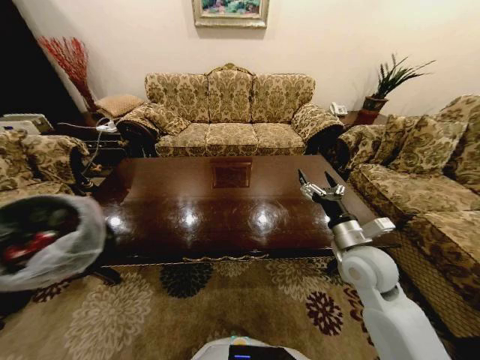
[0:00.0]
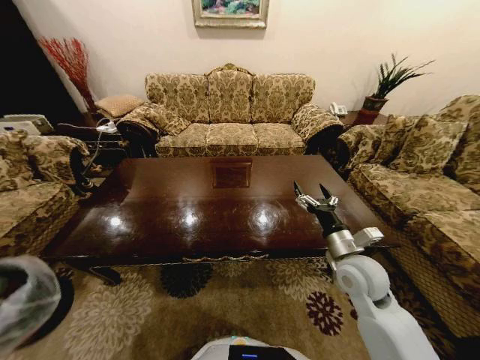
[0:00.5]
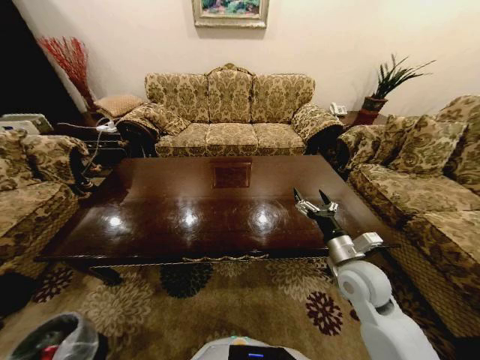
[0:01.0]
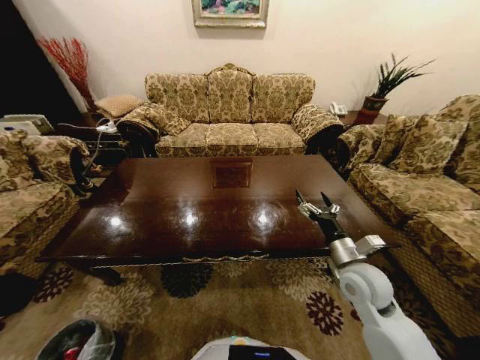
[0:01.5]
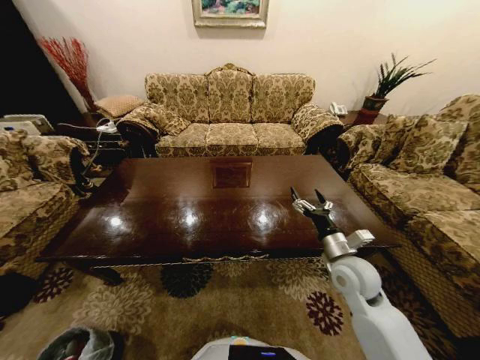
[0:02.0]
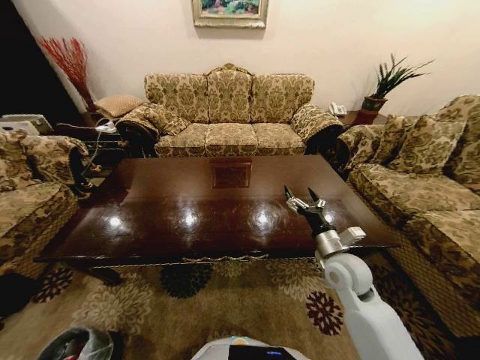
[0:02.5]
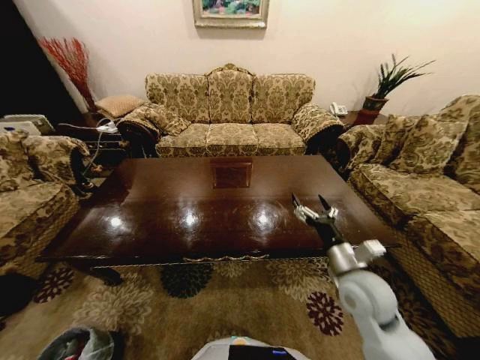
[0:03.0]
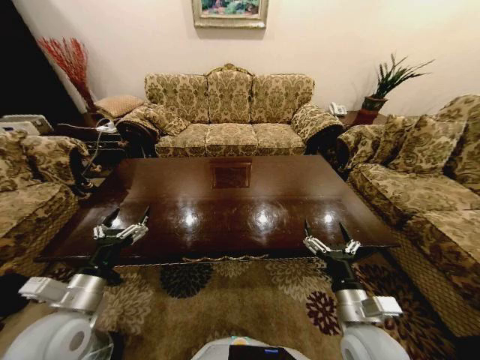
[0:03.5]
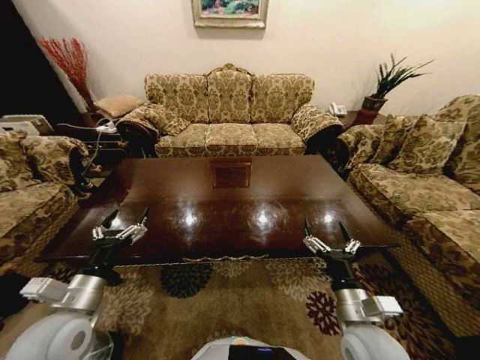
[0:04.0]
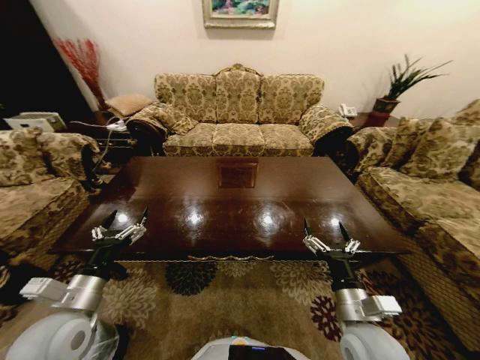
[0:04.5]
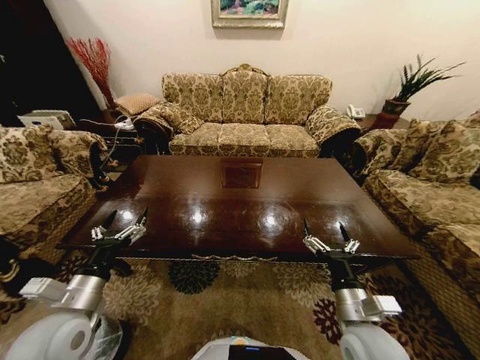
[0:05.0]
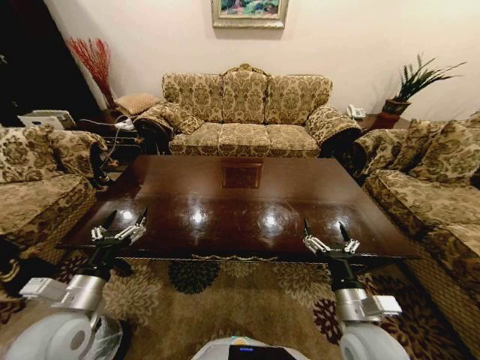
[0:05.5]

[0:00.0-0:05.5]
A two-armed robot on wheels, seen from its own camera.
Task of the whole recording: Move to the front of the table and place the trash on the table into the trash bin.
0:00.0 to 0:02.0: The right gripper changes place by approximately 5 cm. The left gripper is displaced downward by approximately 40 cm, and opens up.
0:02.0 to 0:03.5: The right gripper travels backward by about 15 cm. Meanwhile the left gripper travels upward, to the right and forward by about 50 cm, and opens its fingers.

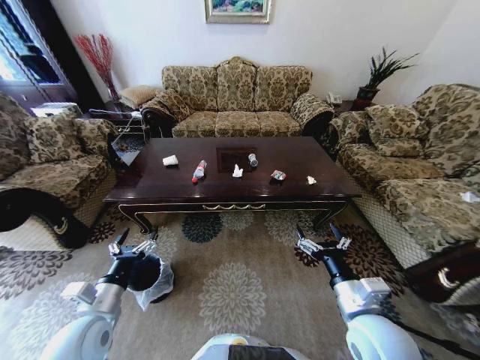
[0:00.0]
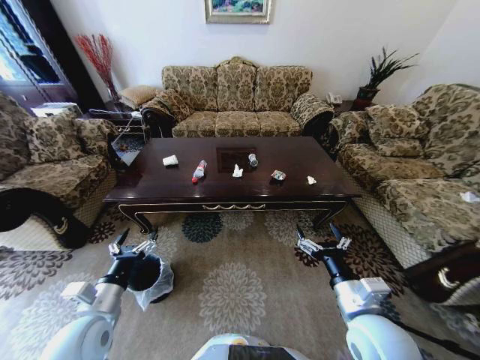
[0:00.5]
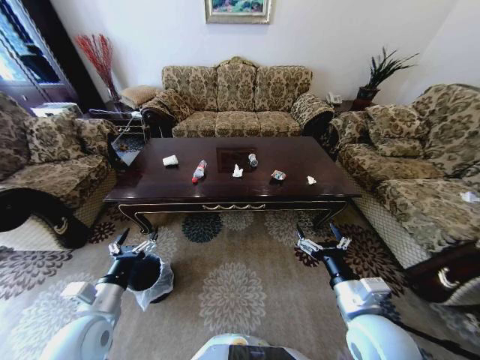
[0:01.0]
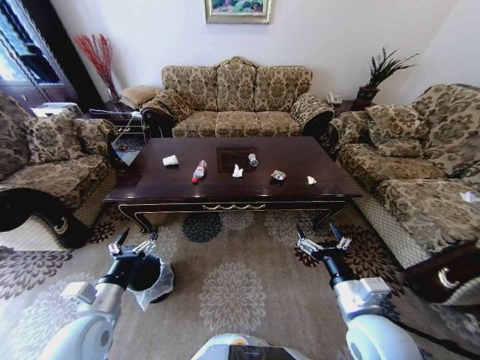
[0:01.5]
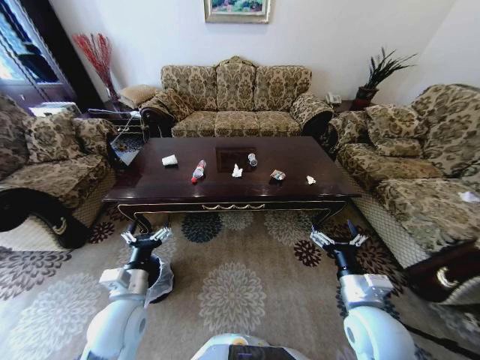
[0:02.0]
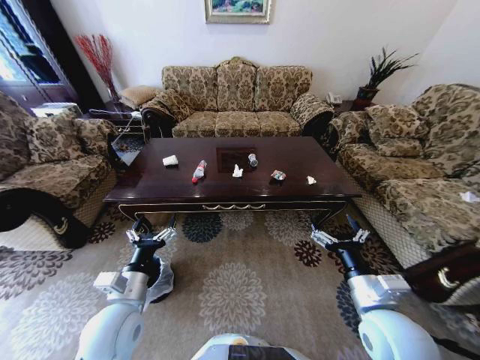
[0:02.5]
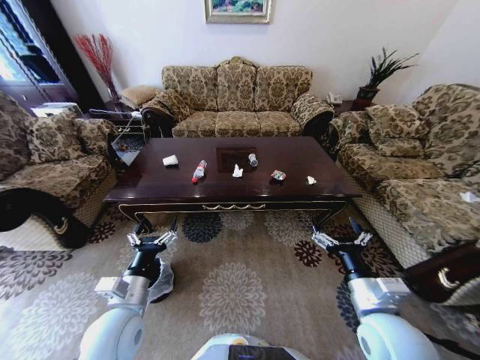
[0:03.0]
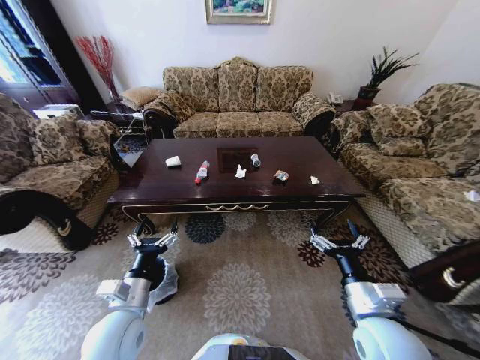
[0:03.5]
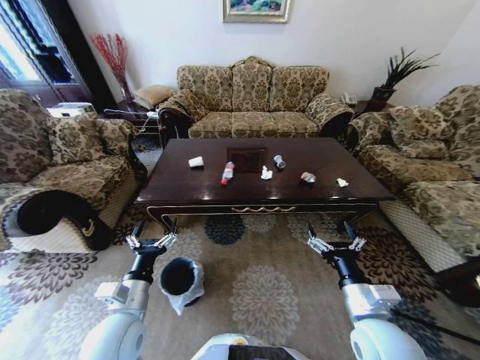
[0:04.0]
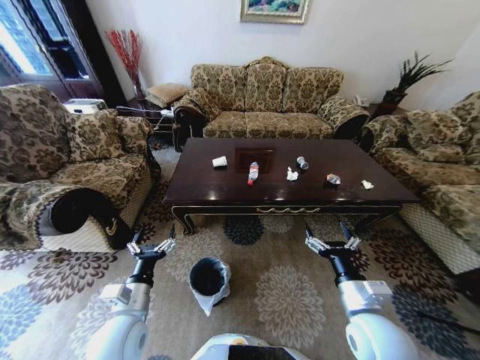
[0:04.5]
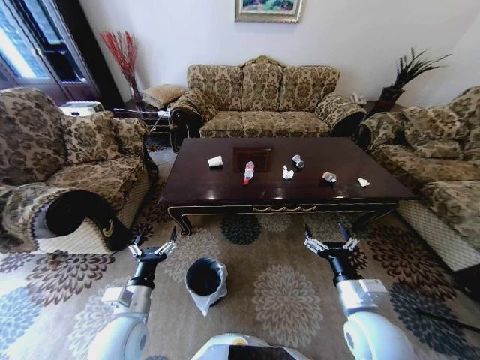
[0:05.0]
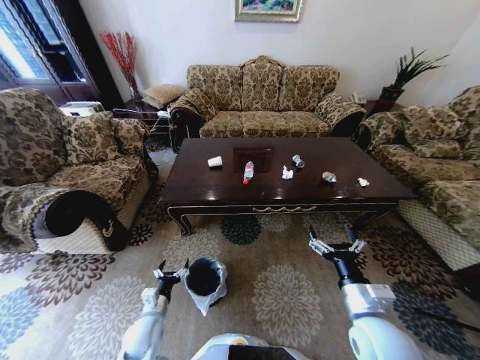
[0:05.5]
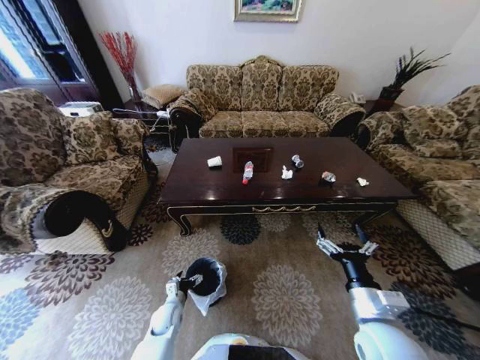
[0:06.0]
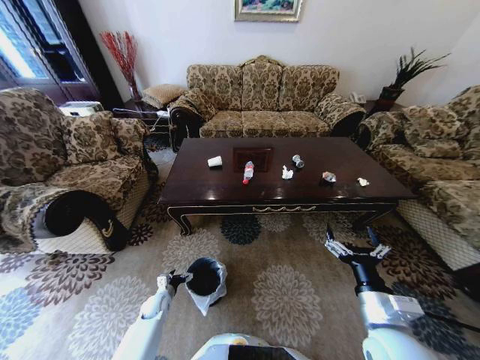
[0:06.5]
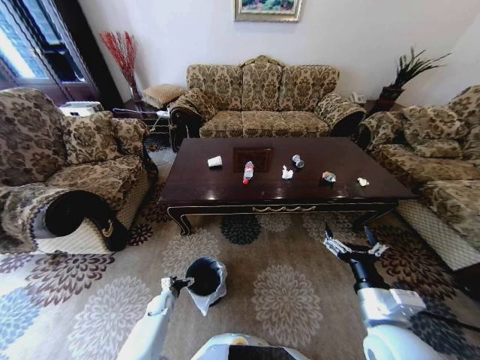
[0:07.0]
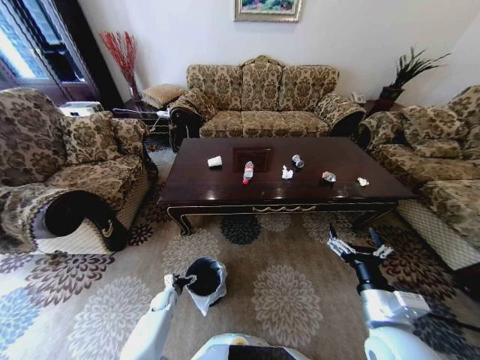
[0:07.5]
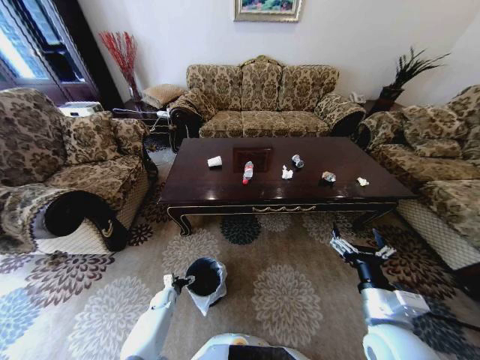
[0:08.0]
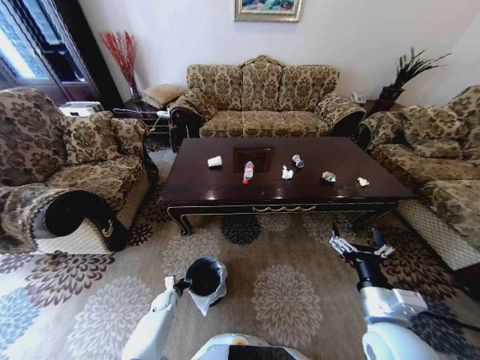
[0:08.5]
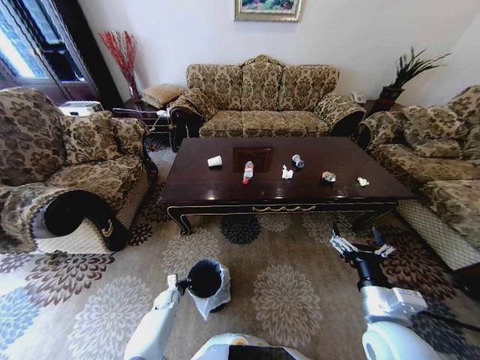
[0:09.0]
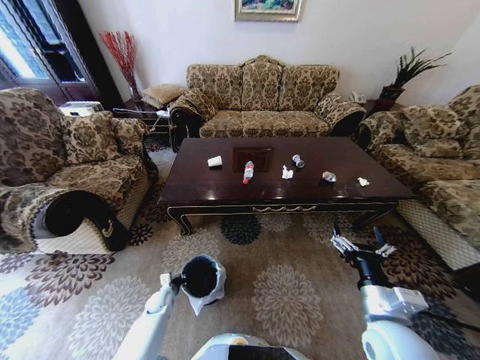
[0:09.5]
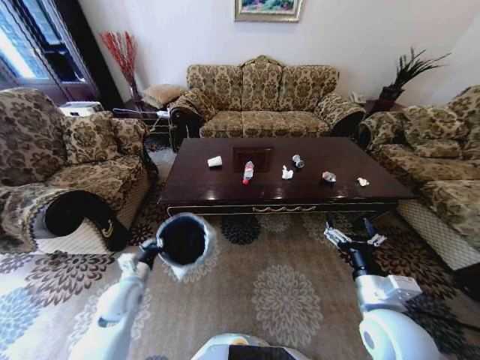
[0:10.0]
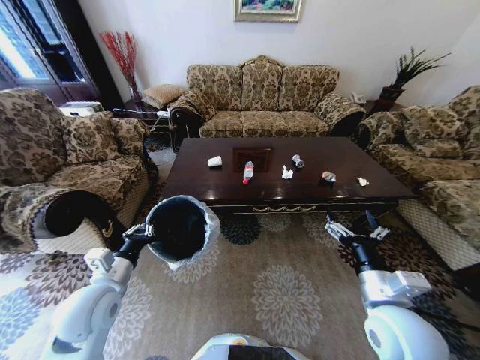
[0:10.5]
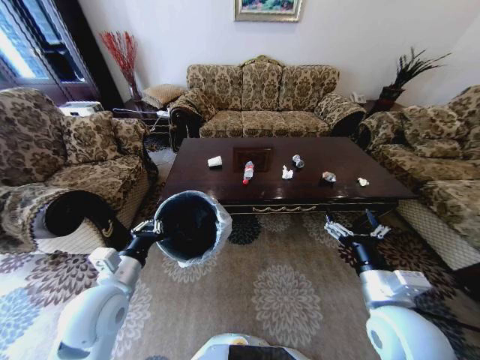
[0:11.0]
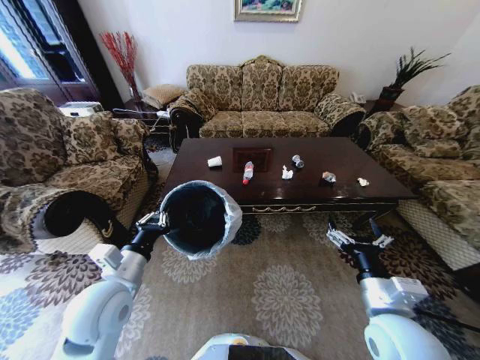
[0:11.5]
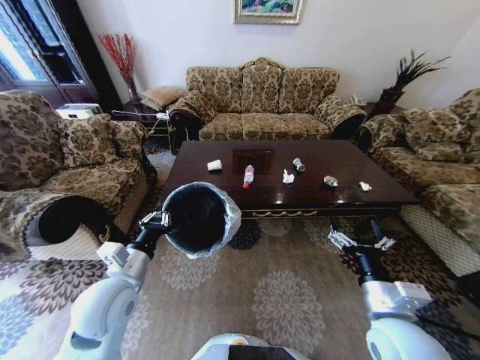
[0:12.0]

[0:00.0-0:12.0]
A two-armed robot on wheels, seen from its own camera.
Task of the whole recording: Move to the front of the table and place the trash on the table into the trash bin.
0:04.0 to 0:06.0: The left gripper travels downward by about 25 cm.
0:06.0 to 0:08.0: The left gripper travels downward, forward and to the left by roughly 15 cm.
0:08.0 to 0:10.0: The left gripper heads upward, covering roughly 25 cm, and closes its fingers.
0:10.0 to 0:12.0: The left gripper is displaced upward and to the right by some 15 cm.

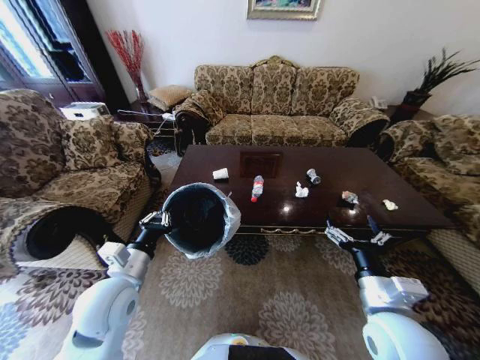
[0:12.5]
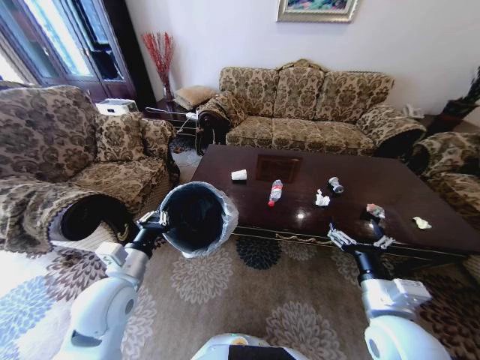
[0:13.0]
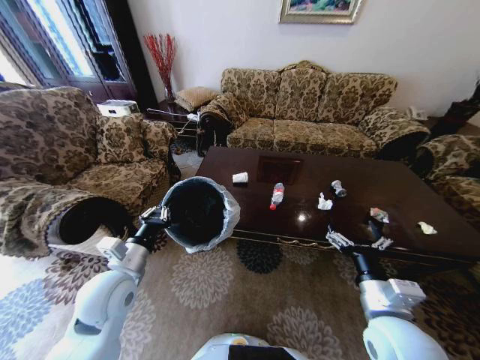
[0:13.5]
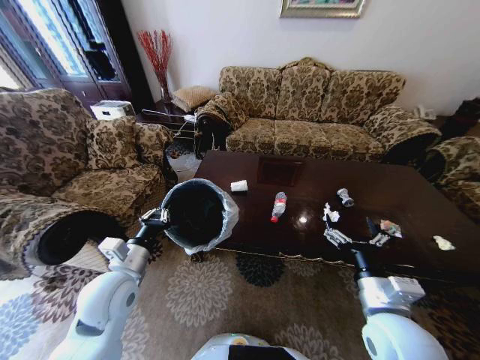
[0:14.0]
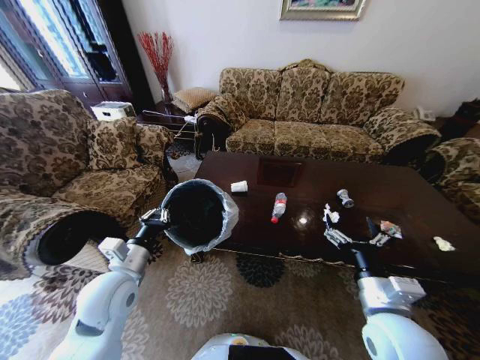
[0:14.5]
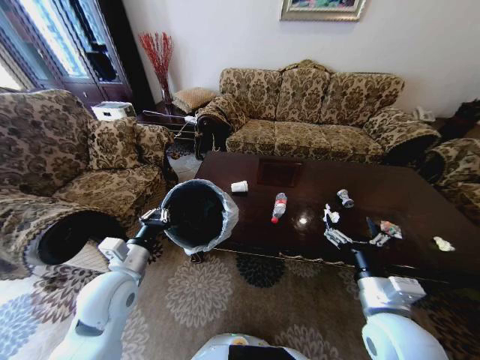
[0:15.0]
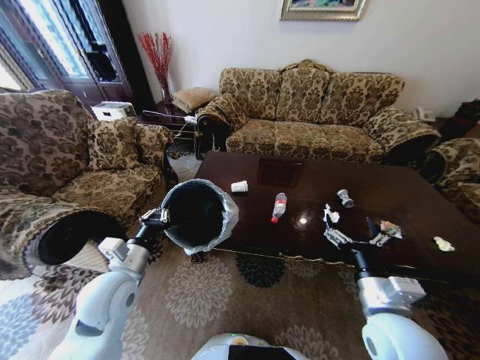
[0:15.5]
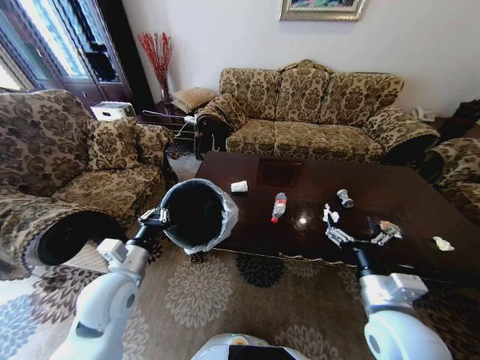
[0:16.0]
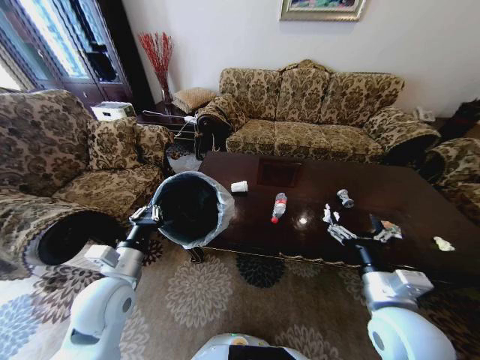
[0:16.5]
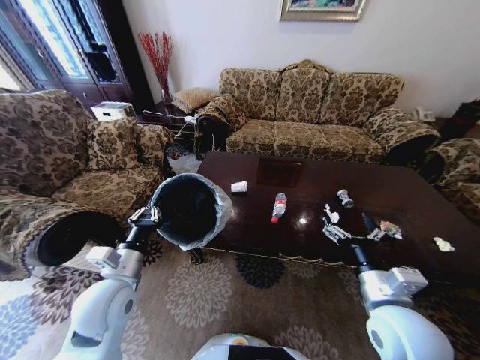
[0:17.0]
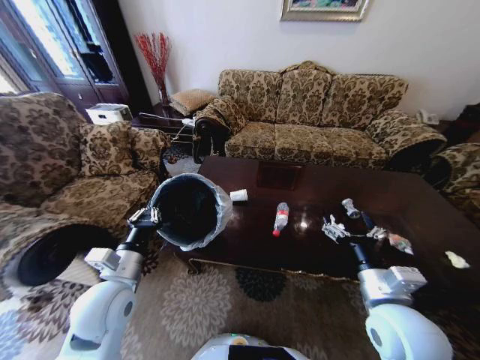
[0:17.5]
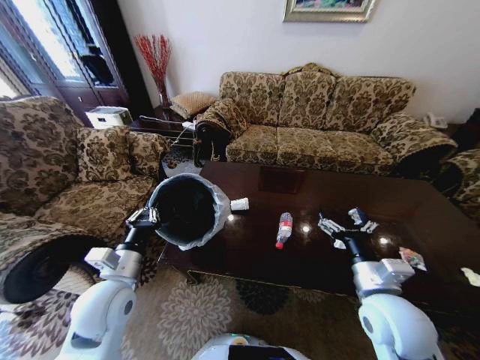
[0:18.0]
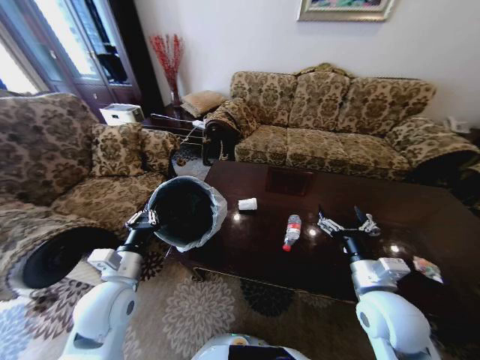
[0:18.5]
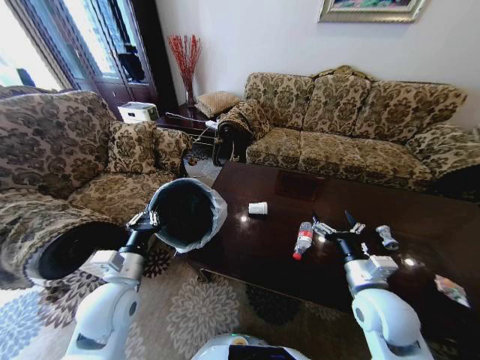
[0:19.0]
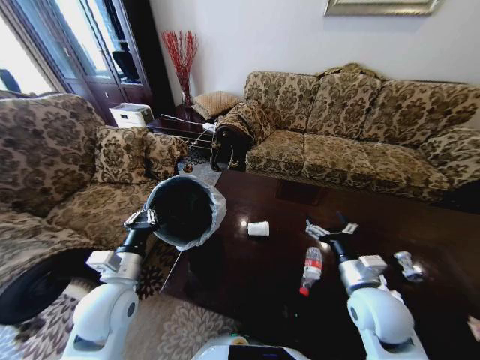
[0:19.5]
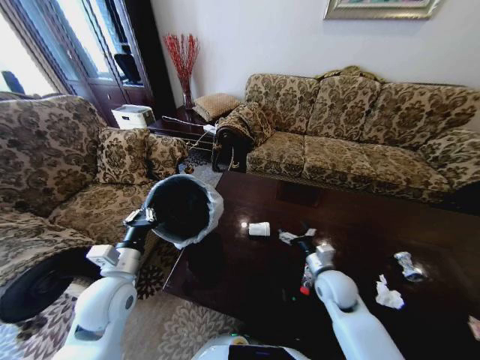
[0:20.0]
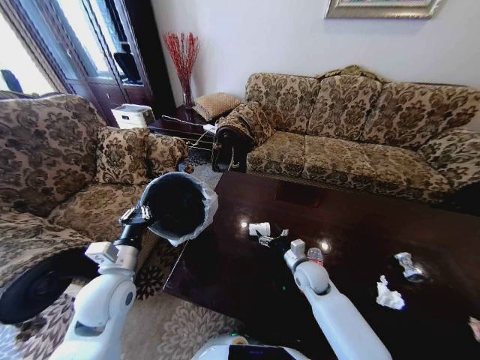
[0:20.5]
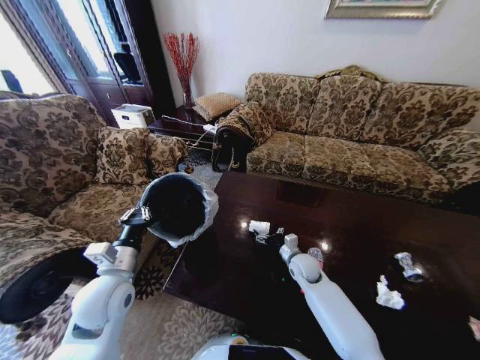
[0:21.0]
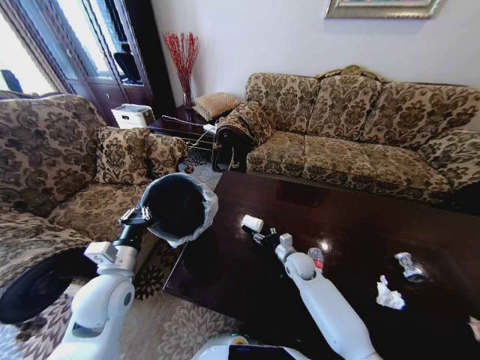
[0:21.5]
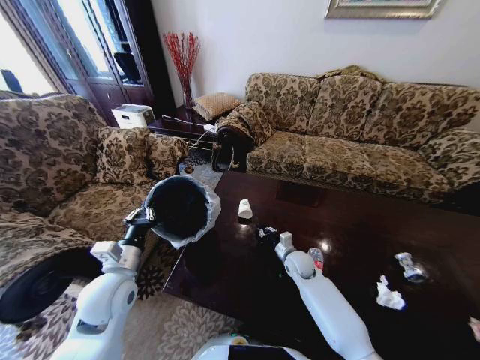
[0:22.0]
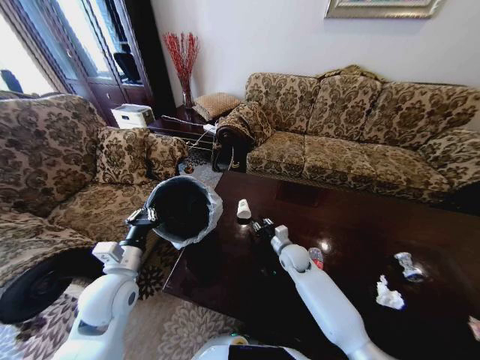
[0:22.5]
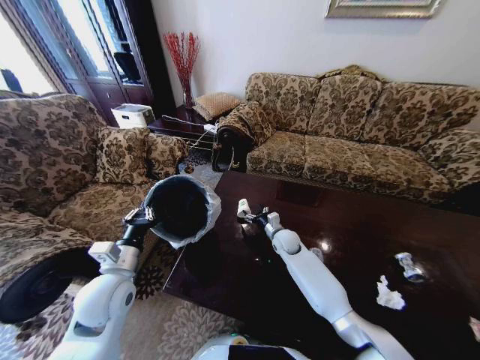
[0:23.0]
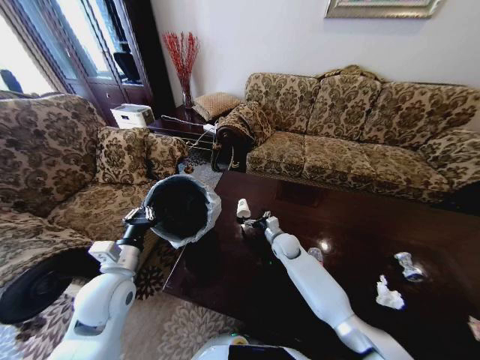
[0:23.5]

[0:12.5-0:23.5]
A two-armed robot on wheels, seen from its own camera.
Task of the whole recording: Move to the front of the table and place the trash on the table into the trash bin.
0:14.5 to 0:16.0: Both grippers stay put.
0:18.0 to 0:20.0: The right gripper is displaced downward and forward by approximately 15 cm.
0:20.0 to 0:21.5: The right gripper is displaced forward, downward and to the left by some 15 cm.
0:21.5 to 0:23.5: The right gripper goes approximately 5 cm forward, and closes, then opens again.
